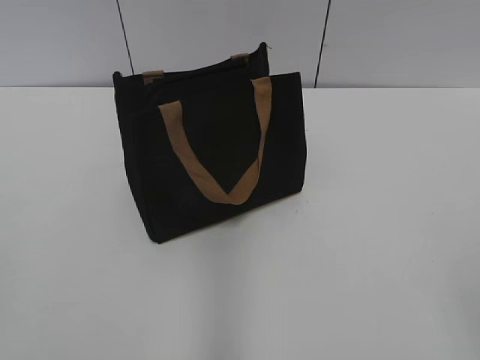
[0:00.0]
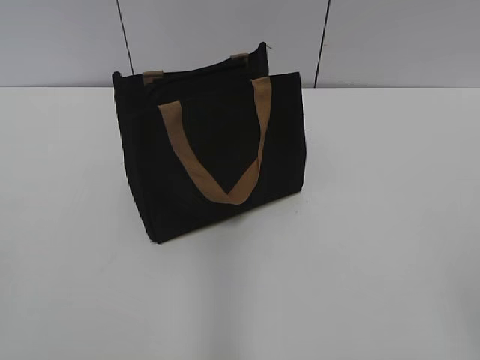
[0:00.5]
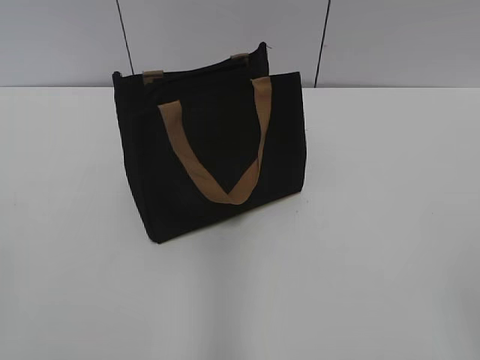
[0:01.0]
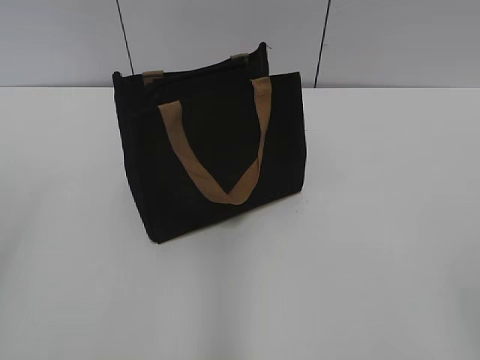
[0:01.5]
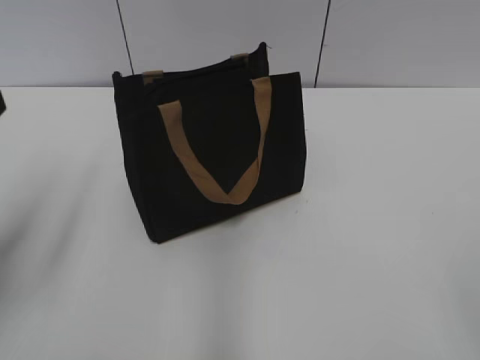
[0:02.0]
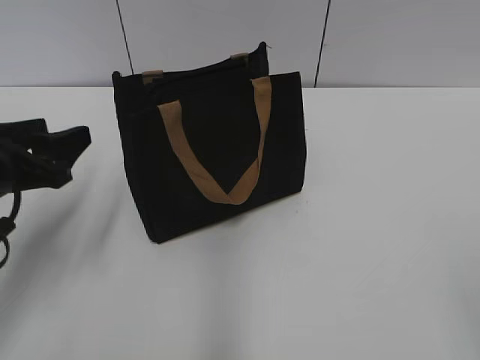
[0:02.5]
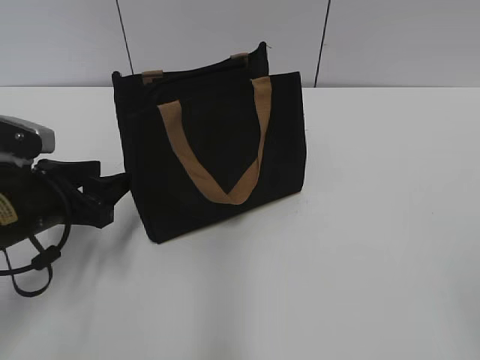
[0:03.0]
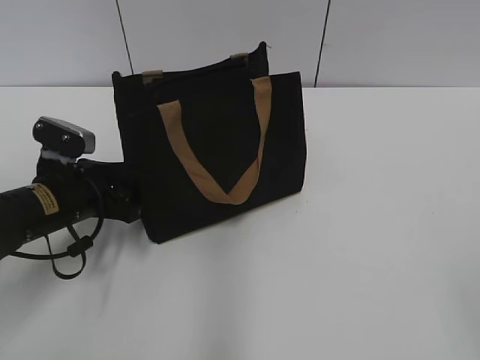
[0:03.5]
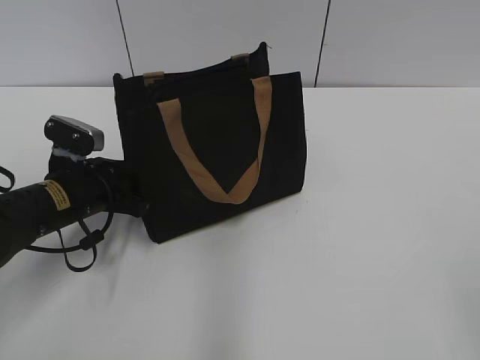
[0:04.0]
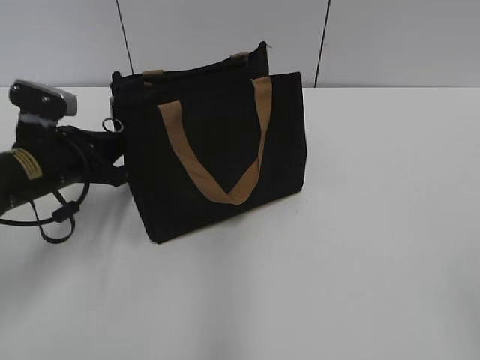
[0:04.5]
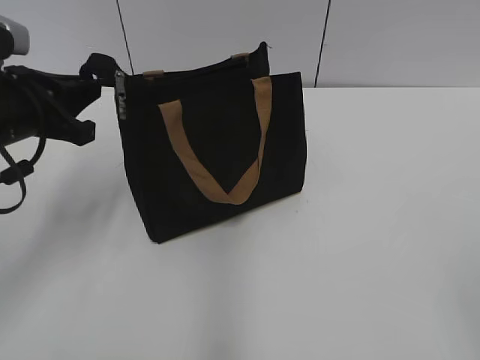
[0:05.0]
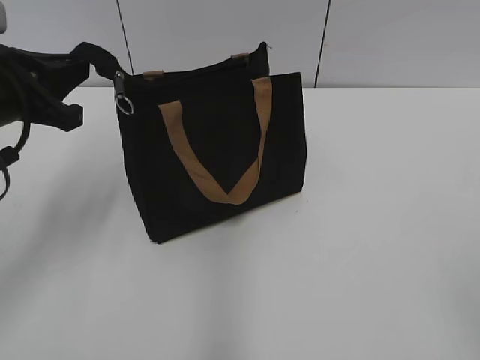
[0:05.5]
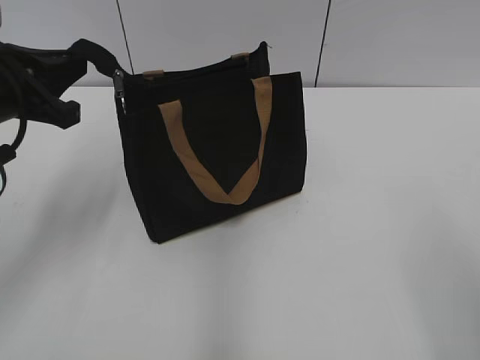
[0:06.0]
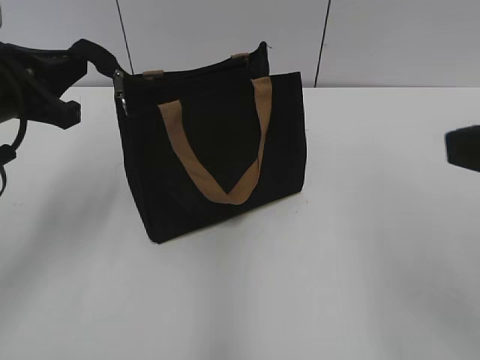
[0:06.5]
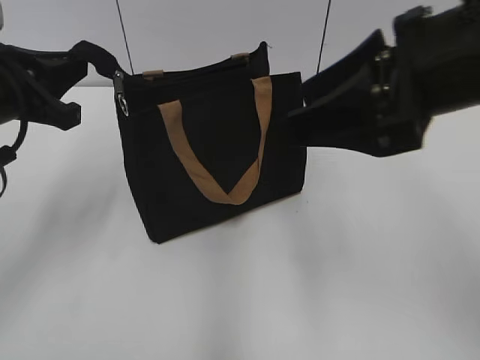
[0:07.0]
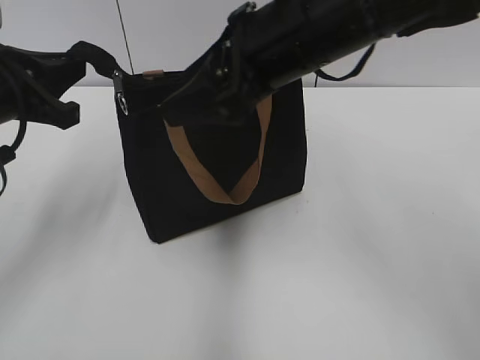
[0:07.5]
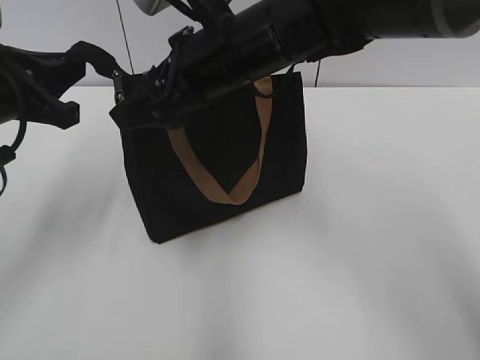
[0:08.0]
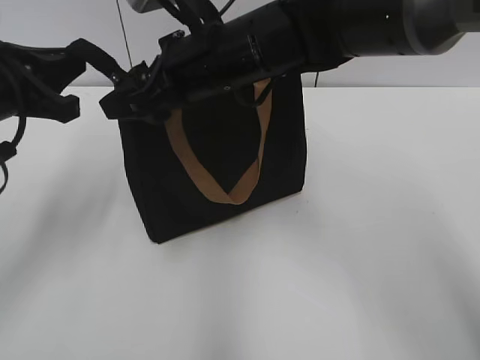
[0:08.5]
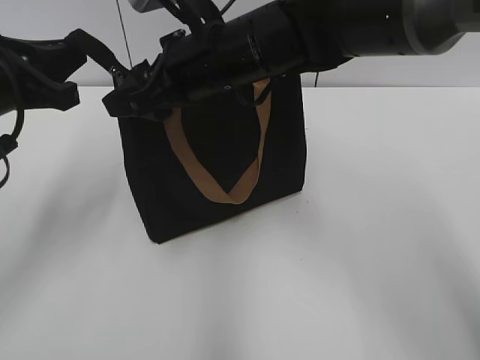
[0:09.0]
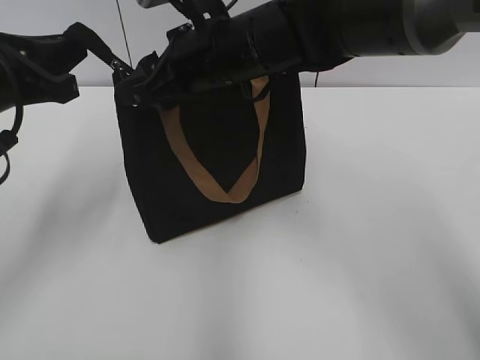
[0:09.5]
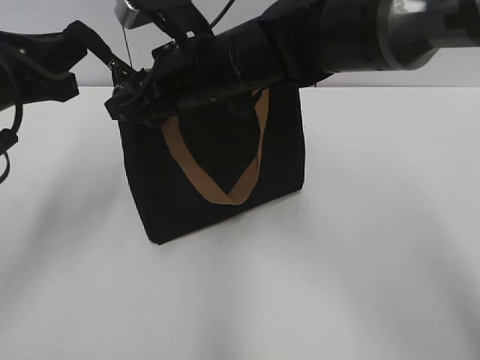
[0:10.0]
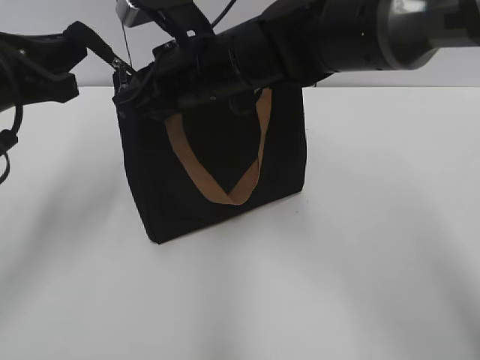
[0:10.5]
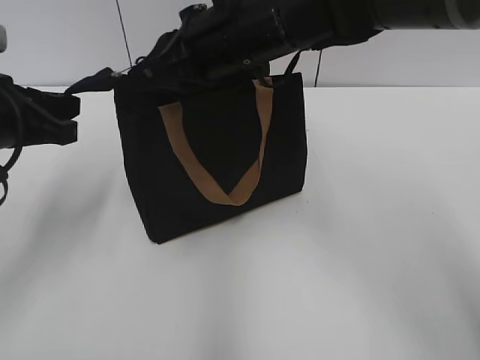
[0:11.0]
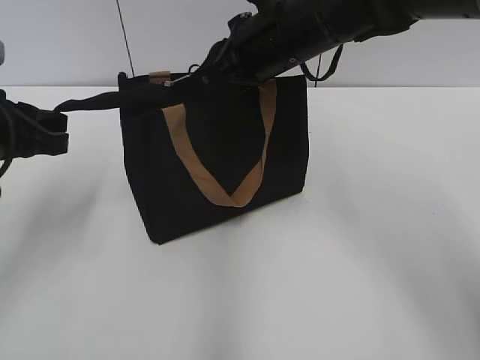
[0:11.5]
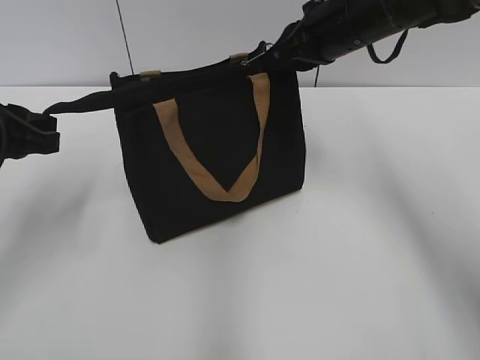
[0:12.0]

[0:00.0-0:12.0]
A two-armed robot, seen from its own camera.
0:02.0 to 0:04.0: The left gripper is displaced downward, forward and to the right by about 25 cm, and closes its fingers.
0:04.0 to 0:06.0: The left gripper shifts some 15 cm upward, and closes.
0:06.0 to 0:08.0: The right gripper heads forward and to the left, covering approximately 40 cm.
0:08.0 to 0:10.0: The right gripper closes.
0:10.0 to 0:12.0: The right gripper moves to the right and forward, some 15 cm, and closes its fingers.

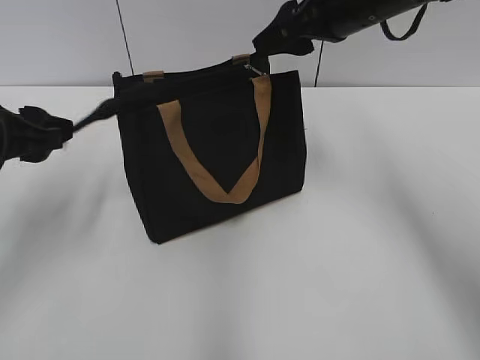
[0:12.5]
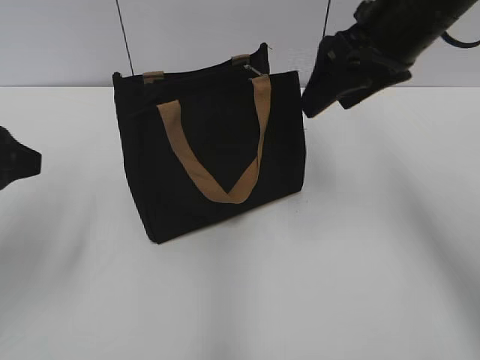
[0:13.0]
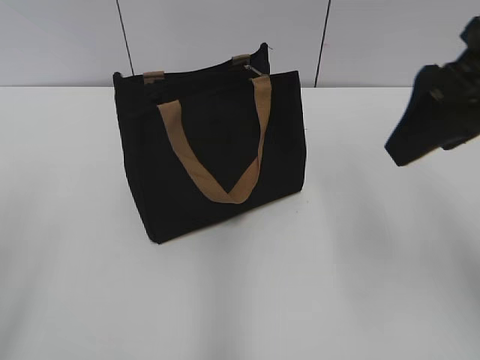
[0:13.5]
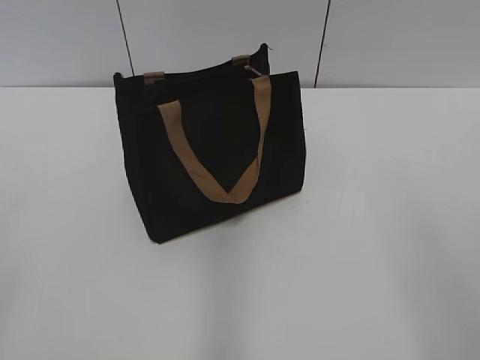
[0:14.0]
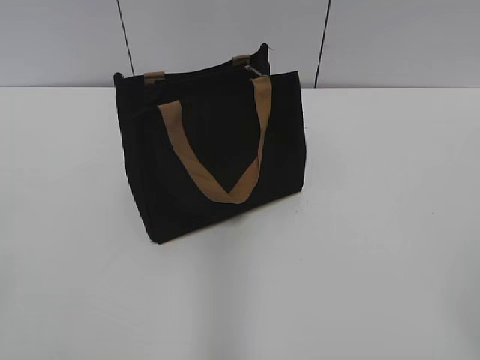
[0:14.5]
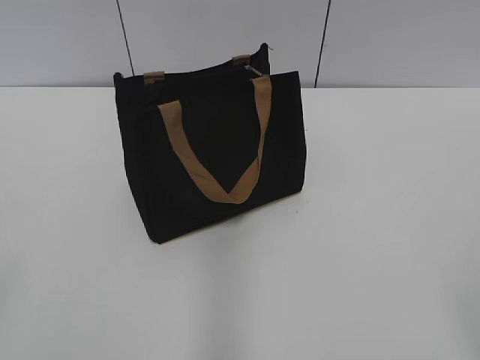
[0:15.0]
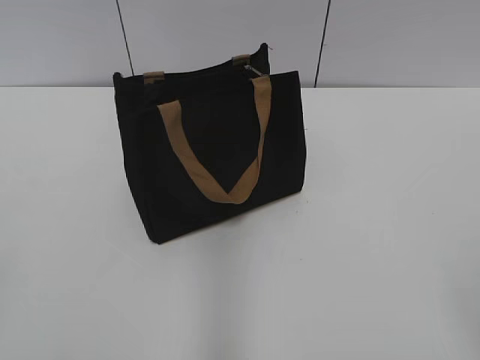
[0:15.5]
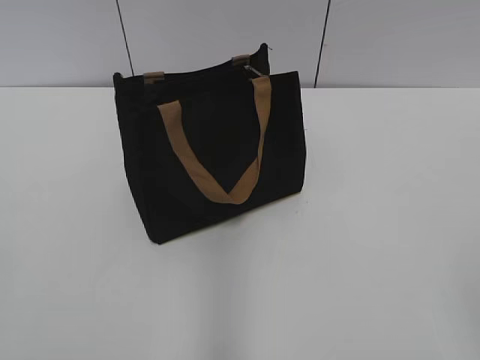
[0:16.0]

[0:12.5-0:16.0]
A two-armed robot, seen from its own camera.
0:12.5 to 0:14.5: The right gripper moves backward, about 40 cm. The left gripper shifts approximately 25 cm backward, and opens up.

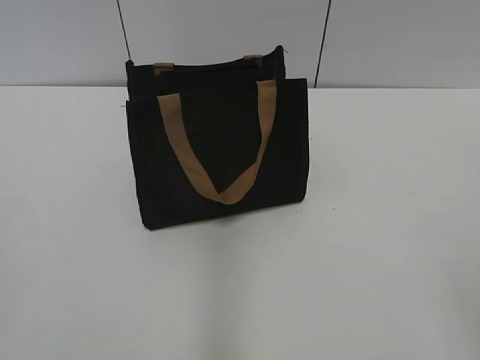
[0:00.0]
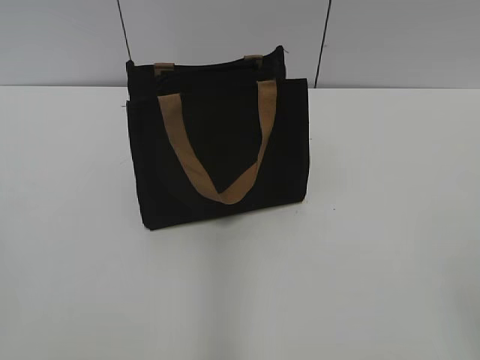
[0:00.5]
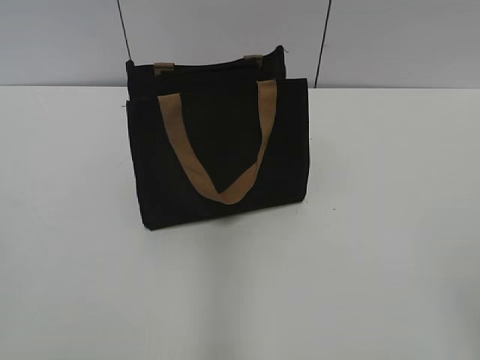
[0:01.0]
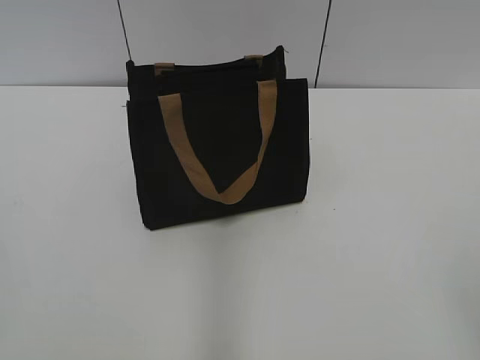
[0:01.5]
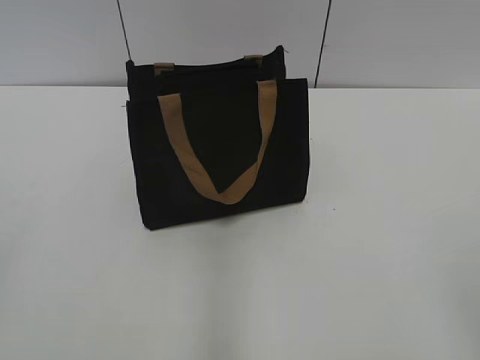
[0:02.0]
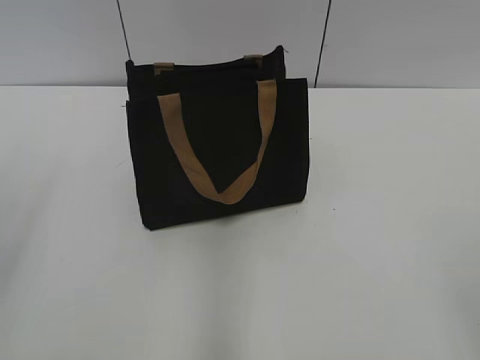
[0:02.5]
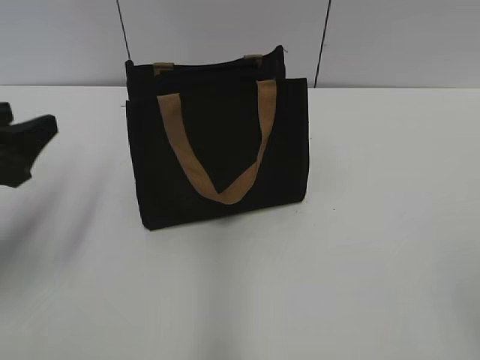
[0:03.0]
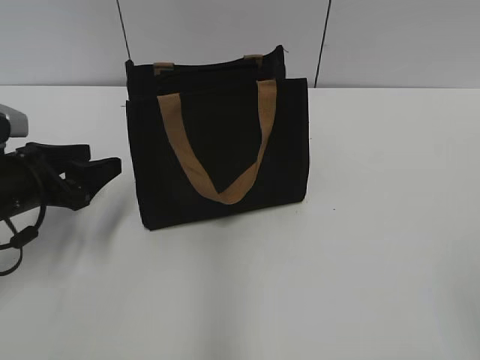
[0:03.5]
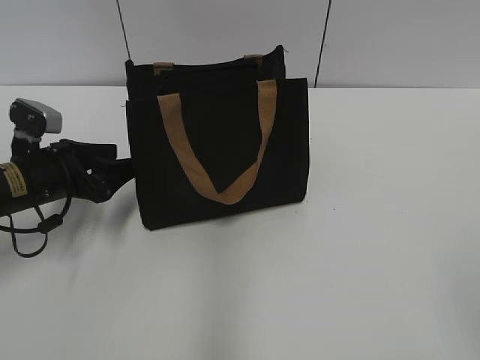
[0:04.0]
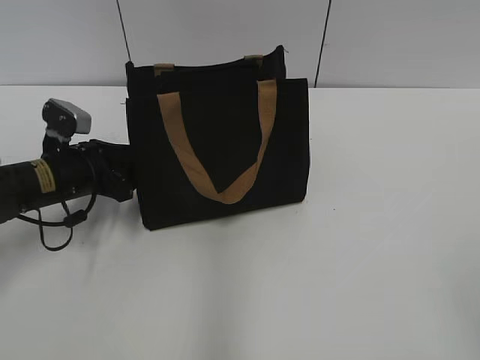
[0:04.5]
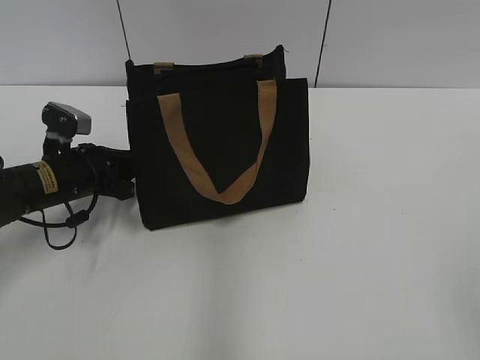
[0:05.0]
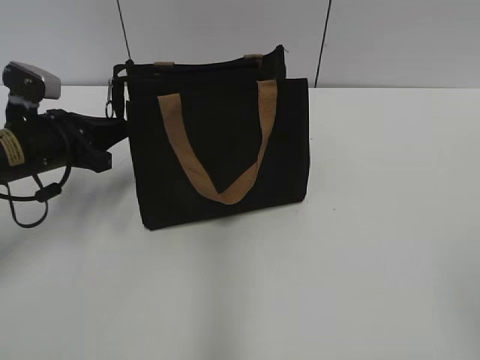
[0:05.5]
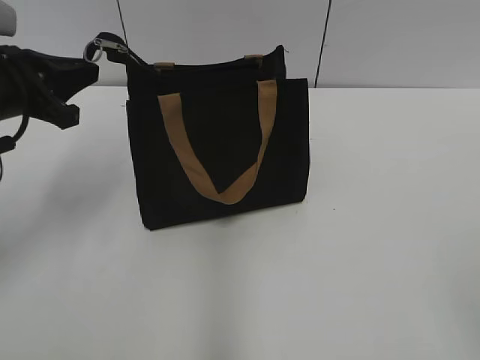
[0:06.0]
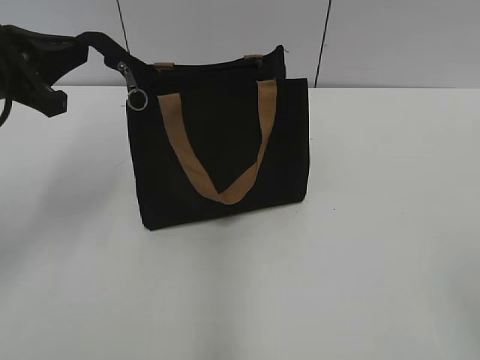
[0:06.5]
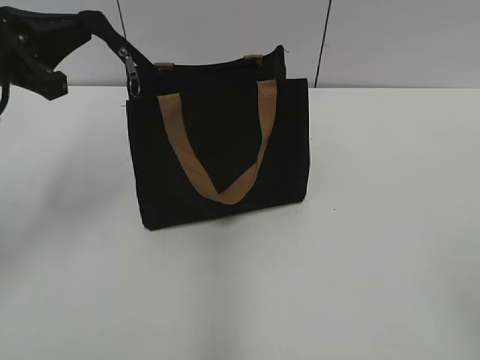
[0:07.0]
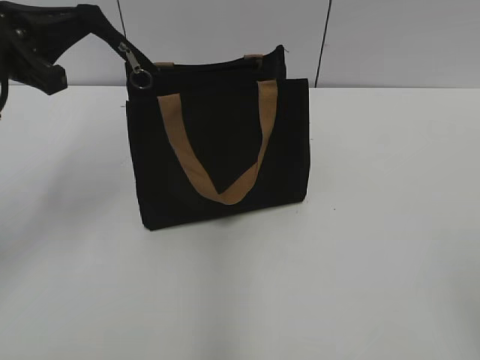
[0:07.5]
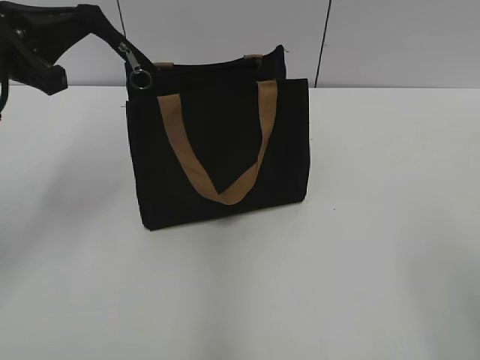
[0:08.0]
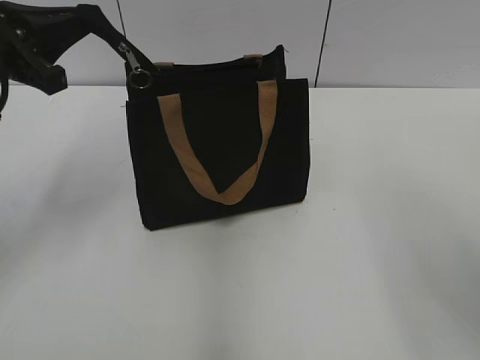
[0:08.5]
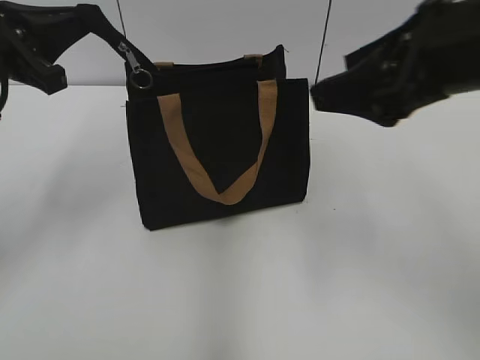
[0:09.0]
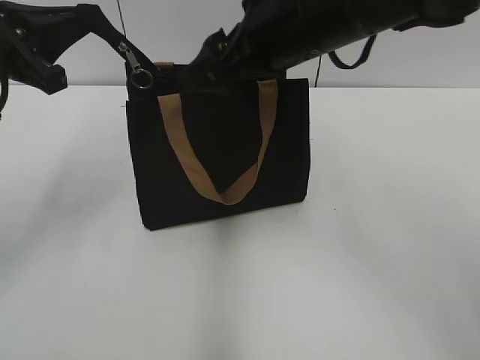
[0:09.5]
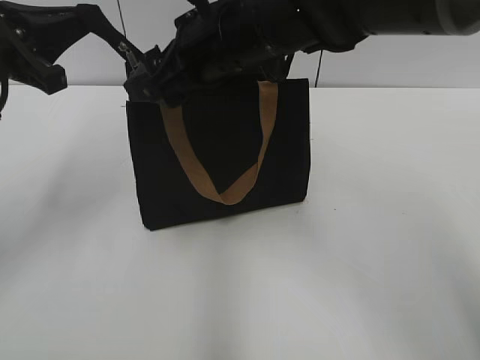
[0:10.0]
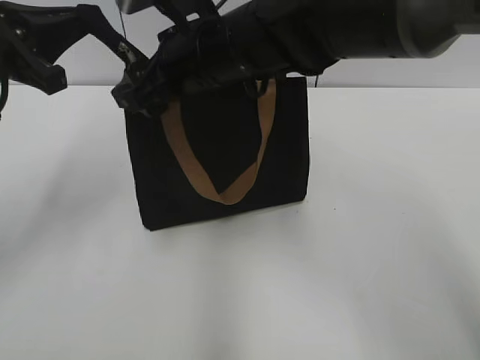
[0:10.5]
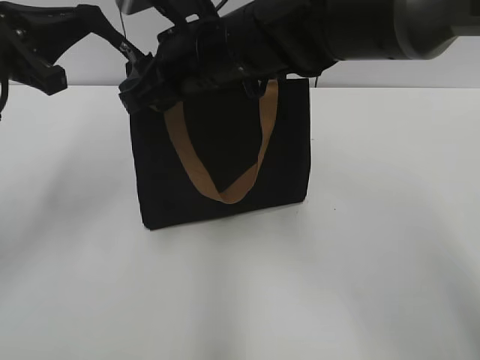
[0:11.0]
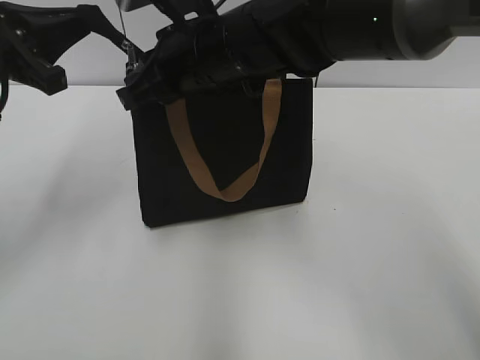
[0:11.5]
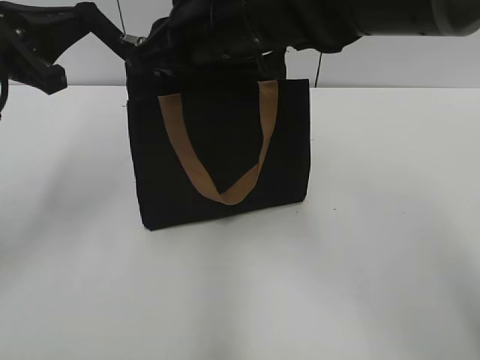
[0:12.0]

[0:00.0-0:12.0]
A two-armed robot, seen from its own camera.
0:02.0 to 0:04.0: The left gripper goes about 40 cm forward and downward.
0:04.0 to 0:06.0: The left gripper moves upward, approximately 10 cm, and closes.
0:06.0 to 0:08.0: There are only small adjustments of the grippers.
0:08.0 to 0:10.0: The right gripper shifts some 40 cm forward and to the left.
0:10.0 to 0:12.0: The right gripper closes up.
